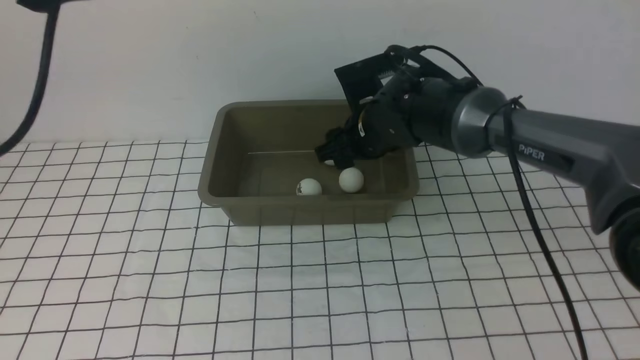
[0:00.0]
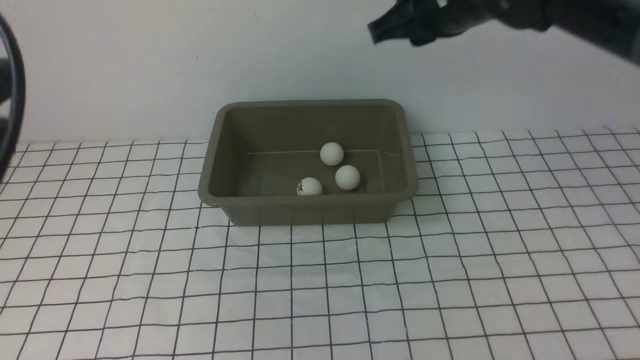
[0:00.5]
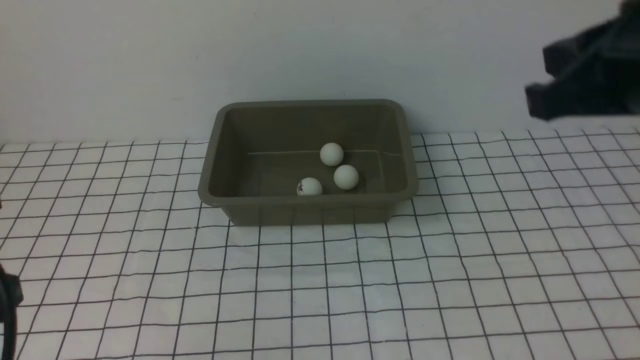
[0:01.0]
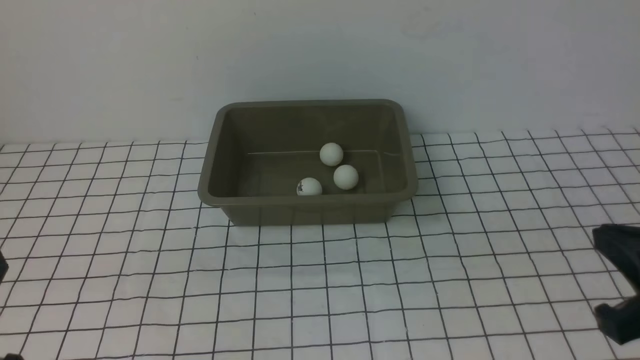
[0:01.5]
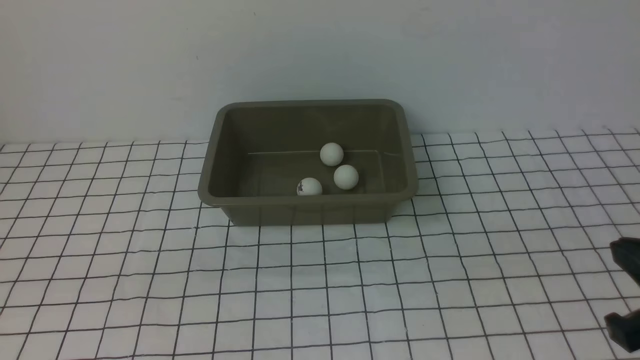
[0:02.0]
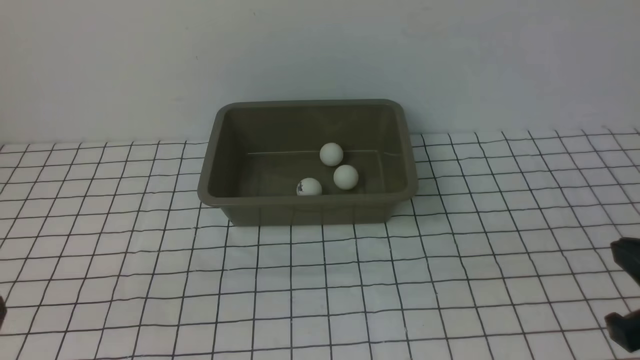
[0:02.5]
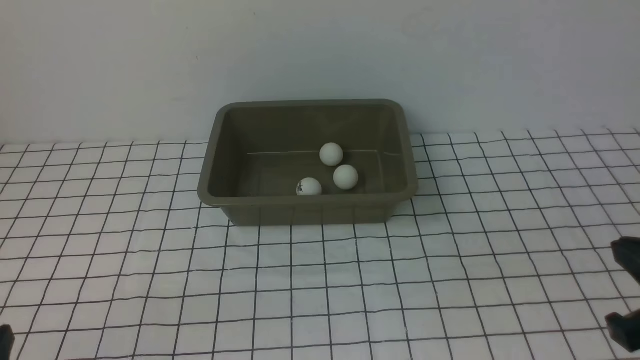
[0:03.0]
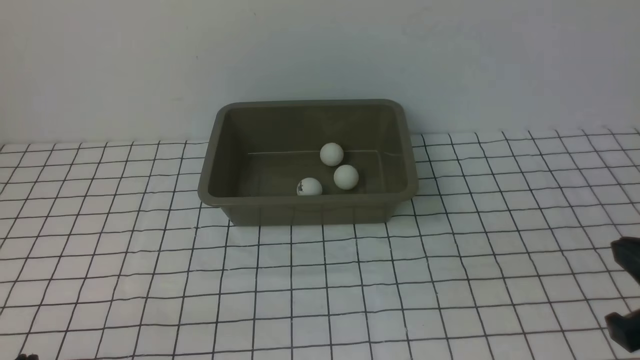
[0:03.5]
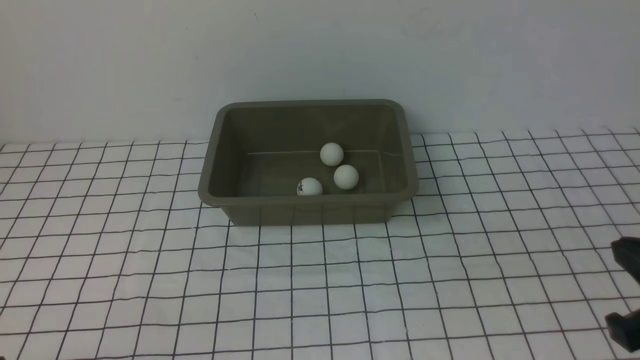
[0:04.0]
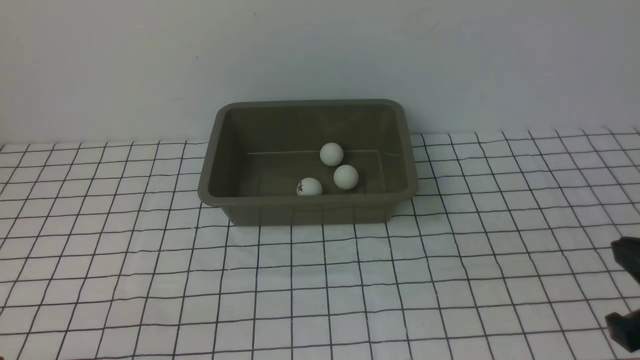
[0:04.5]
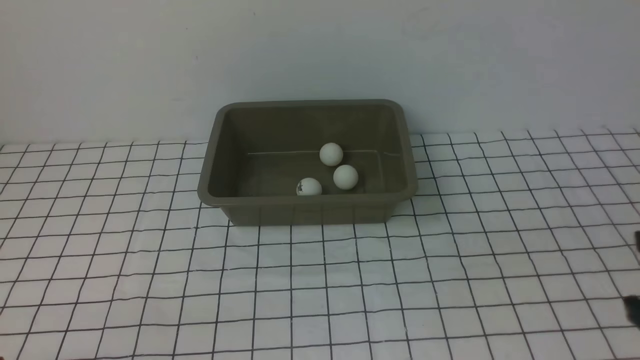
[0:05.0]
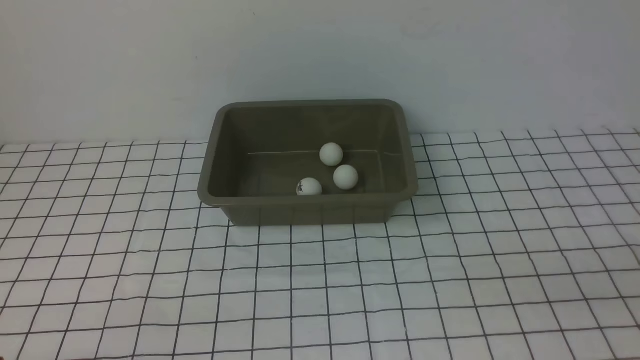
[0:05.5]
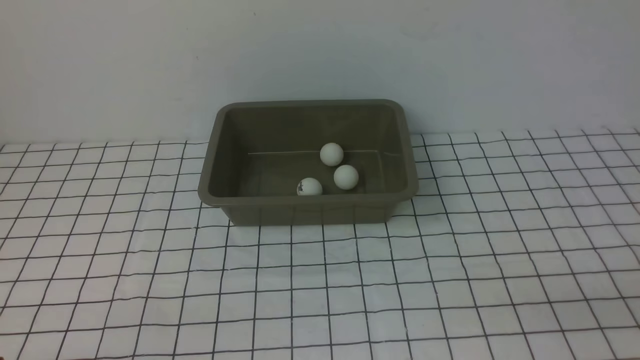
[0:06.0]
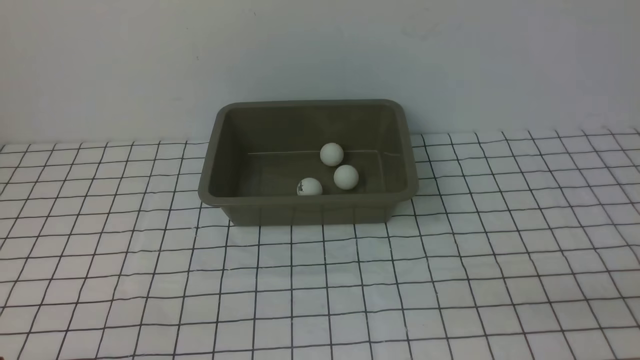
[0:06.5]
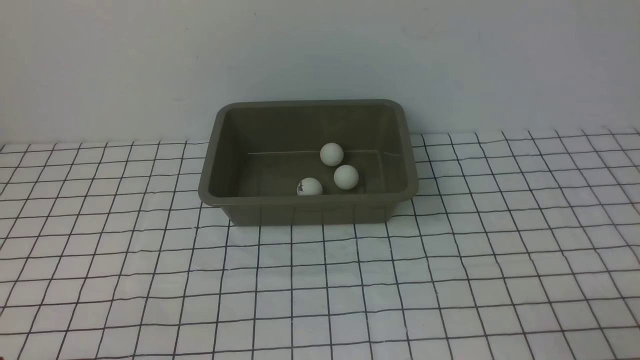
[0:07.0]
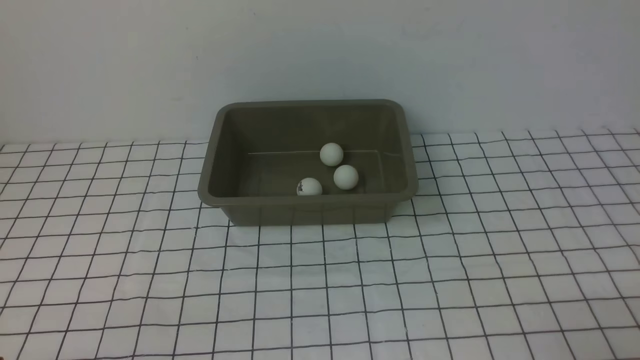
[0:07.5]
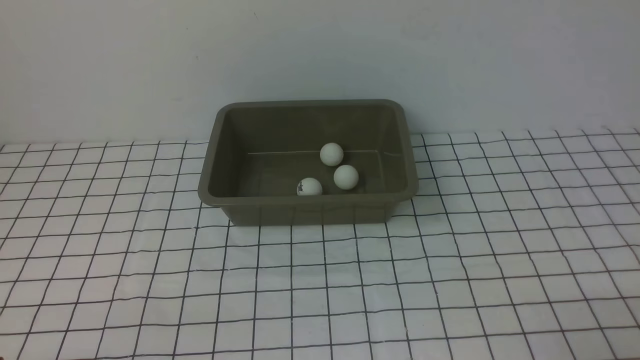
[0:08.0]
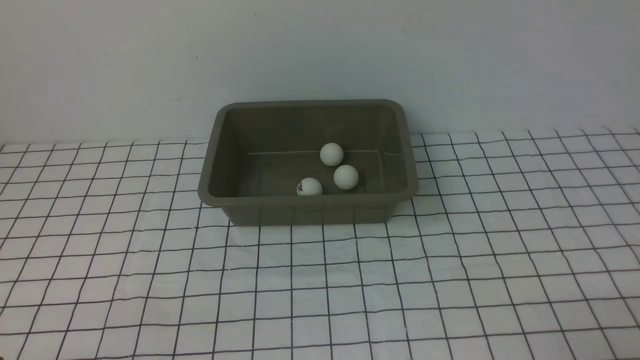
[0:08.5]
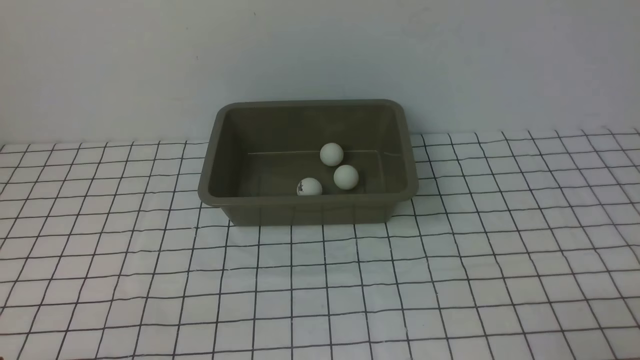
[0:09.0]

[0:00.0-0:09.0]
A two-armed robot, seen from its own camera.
0:00.0 to 0:02.0: The right gripper moves backward and to the right, approximately 30 cm, and closes up, while the left gripper shifts roughly 20 cm downward and backward, and closes its fingers.
0:04.5 to 0:07.0: The right gripper shifts roughly 10 cm downward and backward.
